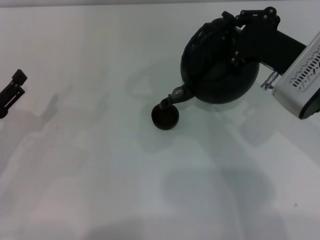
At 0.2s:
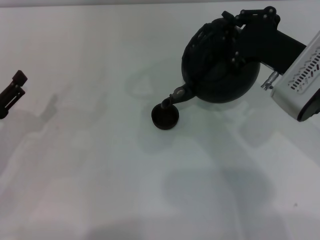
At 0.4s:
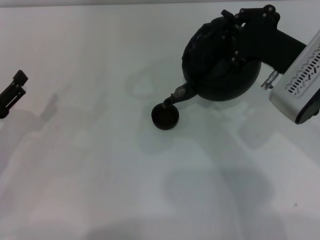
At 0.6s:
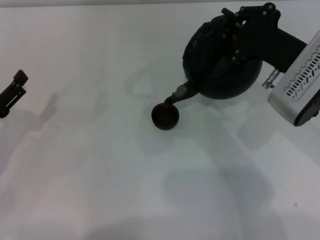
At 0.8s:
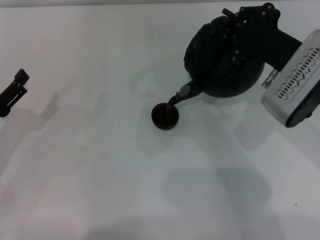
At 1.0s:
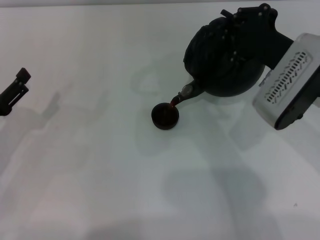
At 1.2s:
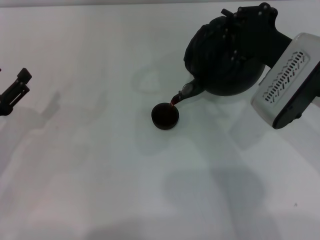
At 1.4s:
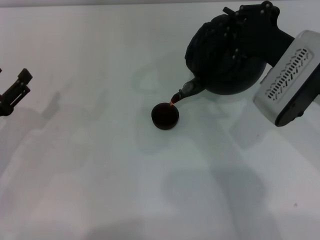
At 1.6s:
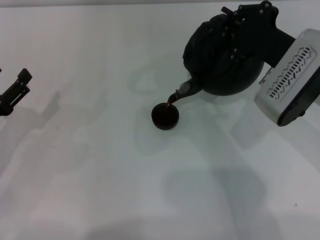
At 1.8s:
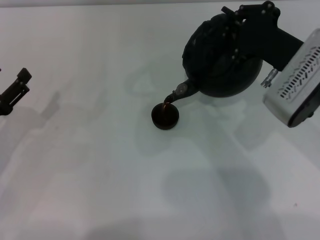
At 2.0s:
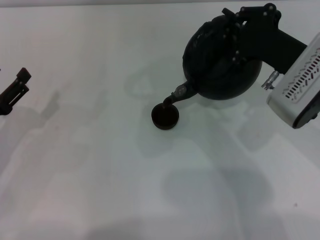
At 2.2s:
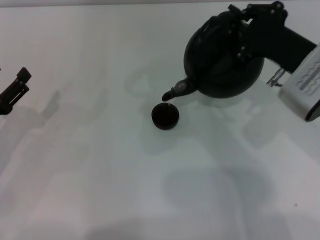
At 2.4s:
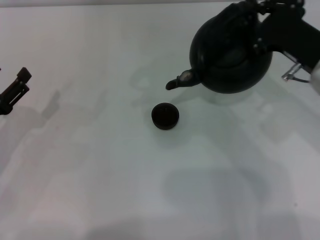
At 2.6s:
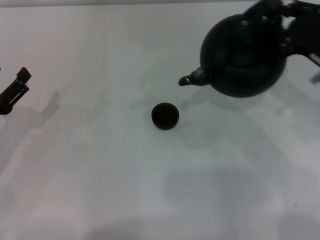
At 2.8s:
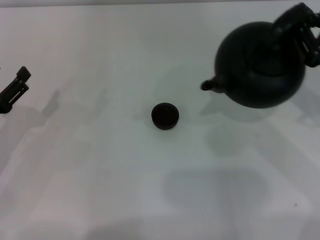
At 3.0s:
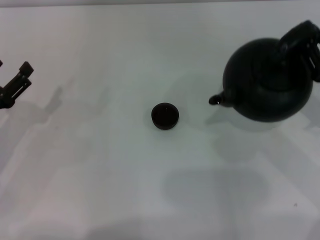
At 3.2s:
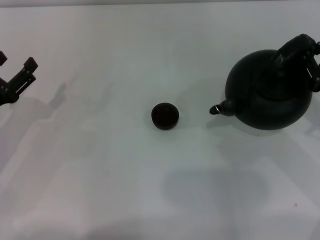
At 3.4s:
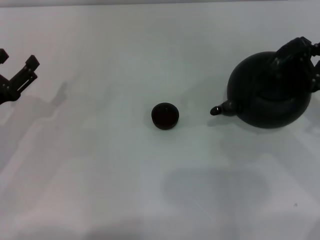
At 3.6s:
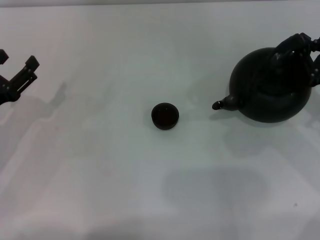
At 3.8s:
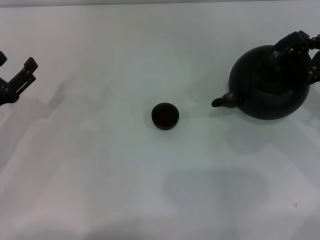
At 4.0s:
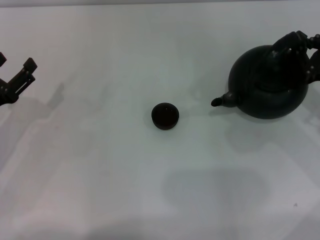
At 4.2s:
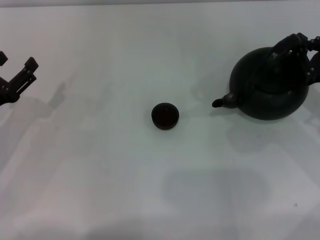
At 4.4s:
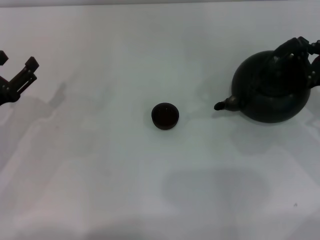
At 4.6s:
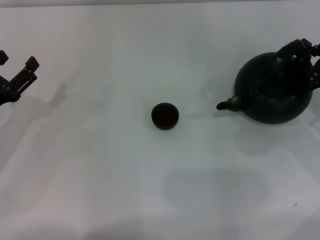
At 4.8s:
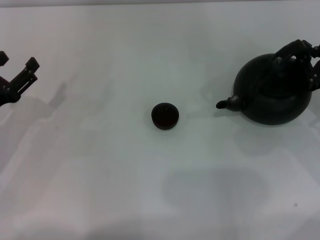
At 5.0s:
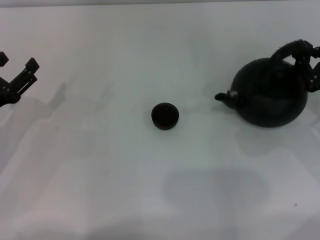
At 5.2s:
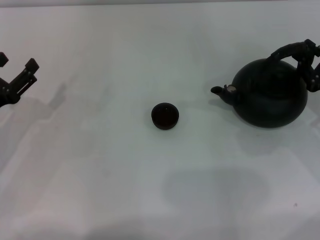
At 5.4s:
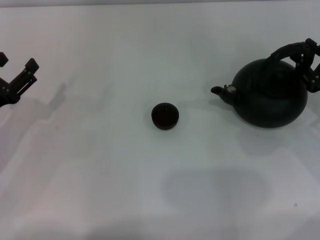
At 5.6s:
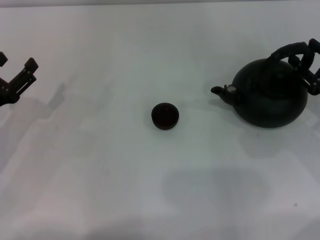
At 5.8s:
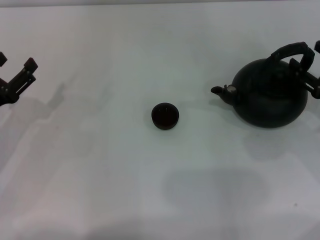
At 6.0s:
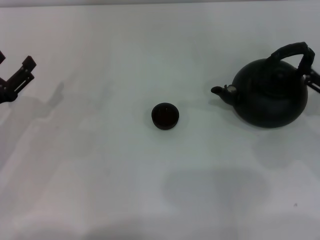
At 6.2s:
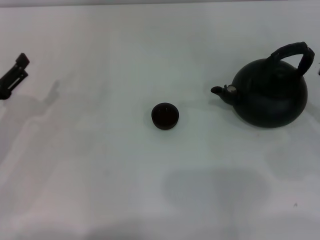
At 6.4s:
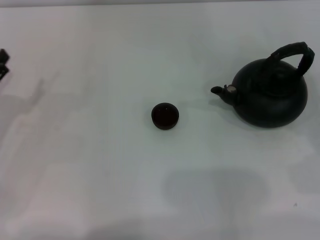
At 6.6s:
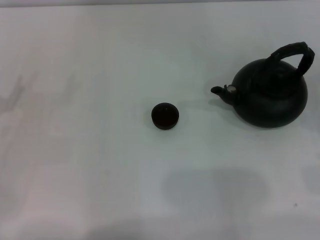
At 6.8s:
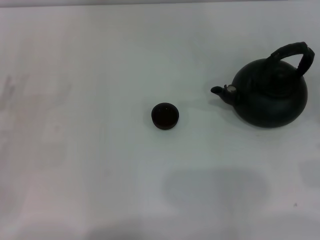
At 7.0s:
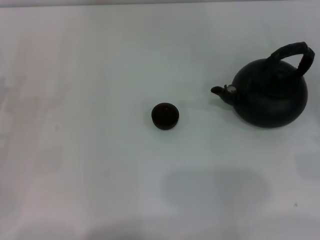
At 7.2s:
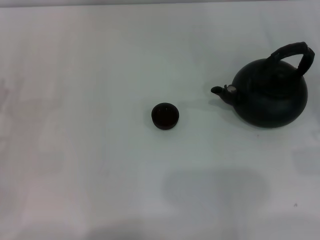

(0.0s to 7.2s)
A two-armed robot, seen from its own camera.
Task of the whole recording: Grasp the handle of the teapot with one hand and pour tea into the teacup.
Step, 0.0s - 2.2s: Pour tea into the teacup with the right gripper.
Step, 2.4s - 5.8s: Put down the teapot with the right gripper.
0.0s - 1.4s: The grippers stay close to where they were, moving slightly.
1.4s - 2.8s: The right gripper travels to the right by about 10 cm.
2.8s - 4.4s: The right gripper moves downward, approximately 5 cm.
4.4s - 5.8s: The right gripper opens up.
5.8s - 7.2s: The right gripper travels to the right by about 5 cm, and opens.

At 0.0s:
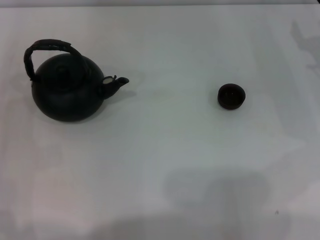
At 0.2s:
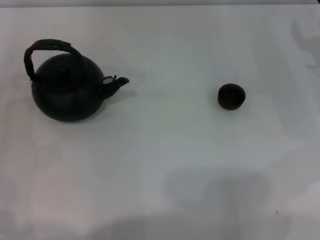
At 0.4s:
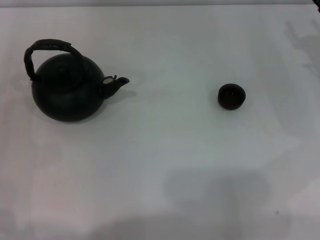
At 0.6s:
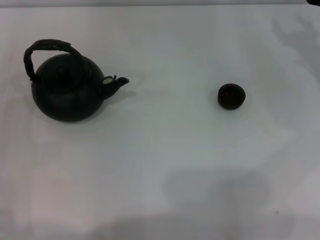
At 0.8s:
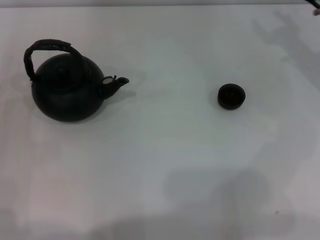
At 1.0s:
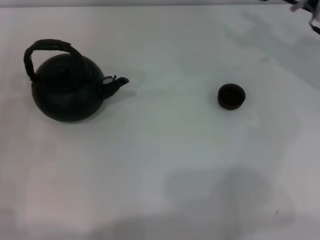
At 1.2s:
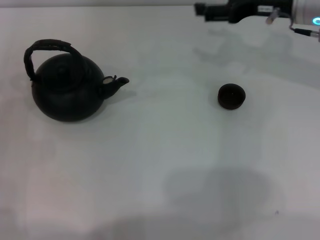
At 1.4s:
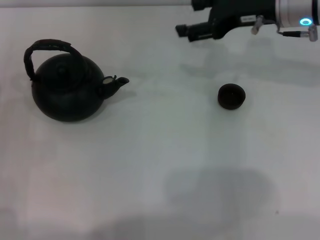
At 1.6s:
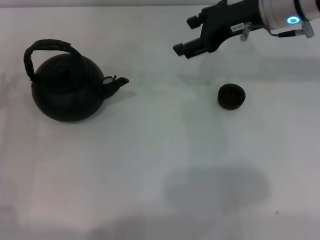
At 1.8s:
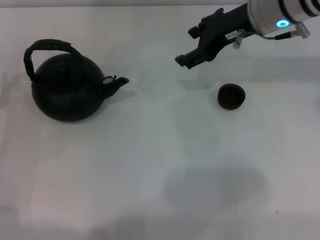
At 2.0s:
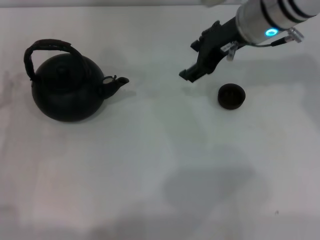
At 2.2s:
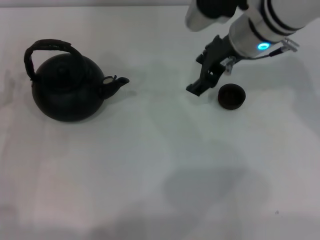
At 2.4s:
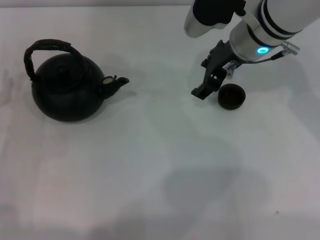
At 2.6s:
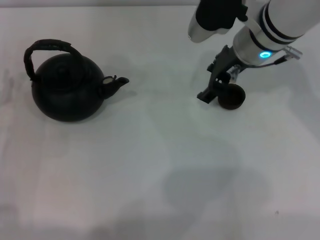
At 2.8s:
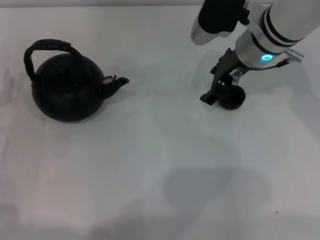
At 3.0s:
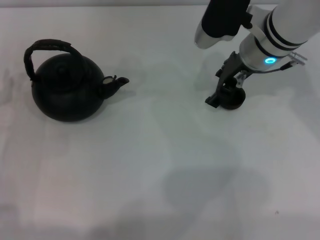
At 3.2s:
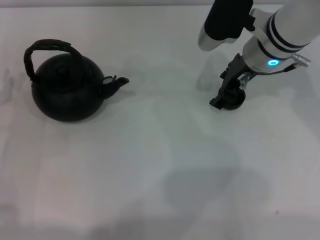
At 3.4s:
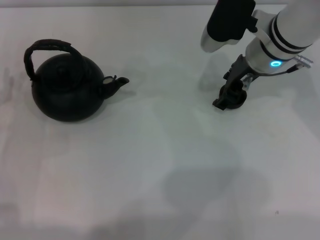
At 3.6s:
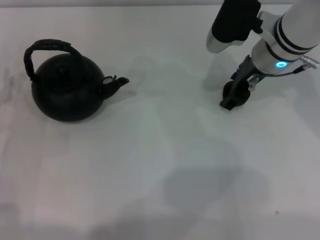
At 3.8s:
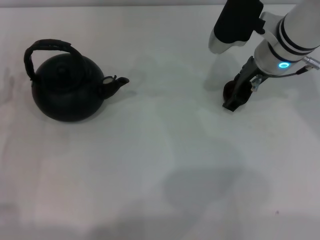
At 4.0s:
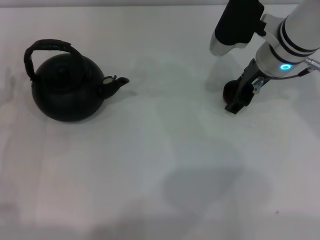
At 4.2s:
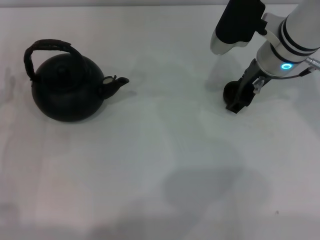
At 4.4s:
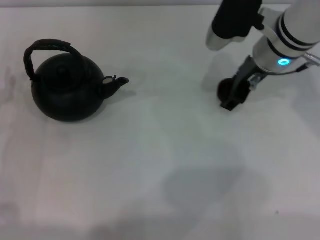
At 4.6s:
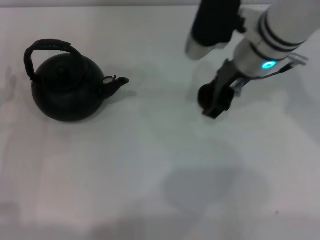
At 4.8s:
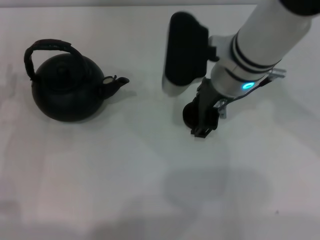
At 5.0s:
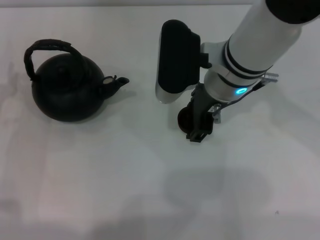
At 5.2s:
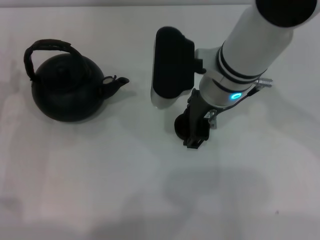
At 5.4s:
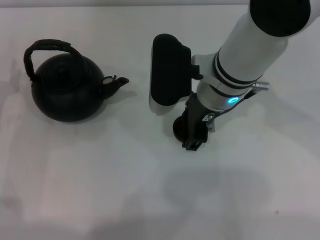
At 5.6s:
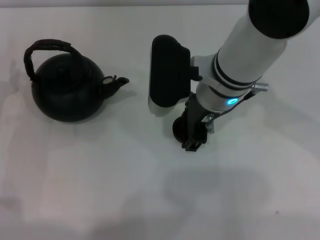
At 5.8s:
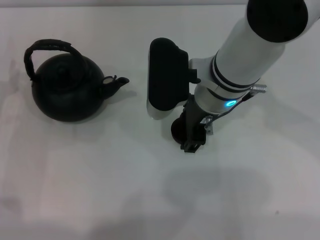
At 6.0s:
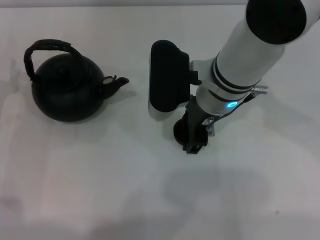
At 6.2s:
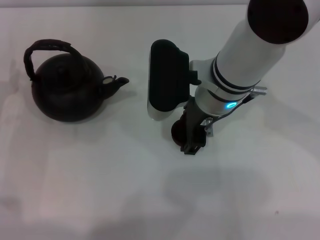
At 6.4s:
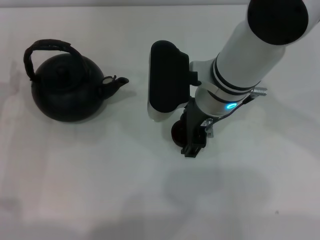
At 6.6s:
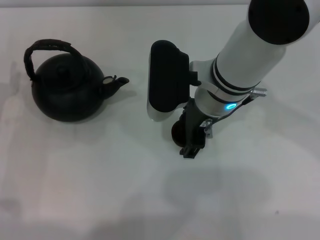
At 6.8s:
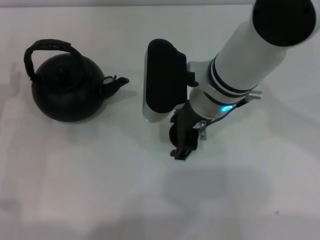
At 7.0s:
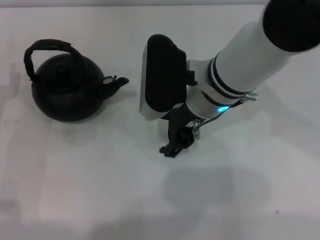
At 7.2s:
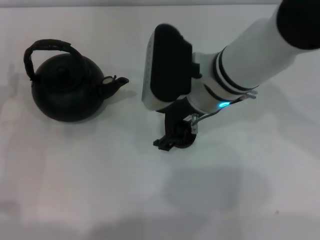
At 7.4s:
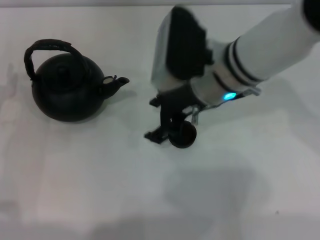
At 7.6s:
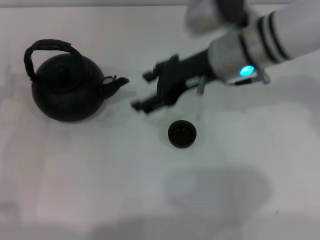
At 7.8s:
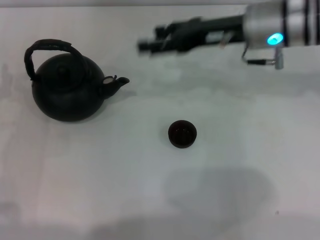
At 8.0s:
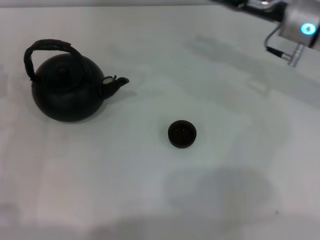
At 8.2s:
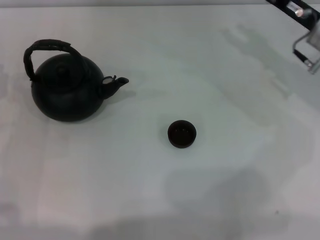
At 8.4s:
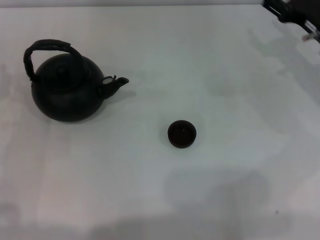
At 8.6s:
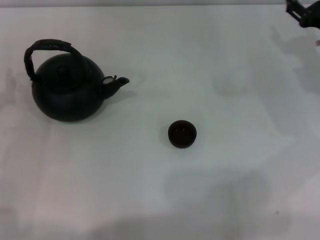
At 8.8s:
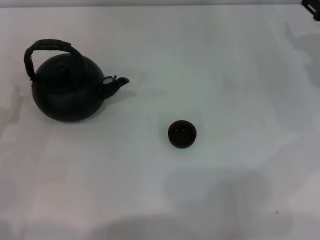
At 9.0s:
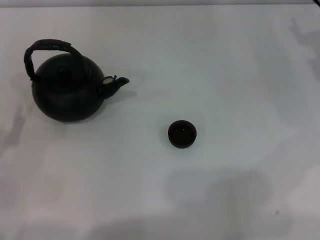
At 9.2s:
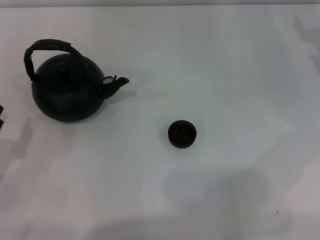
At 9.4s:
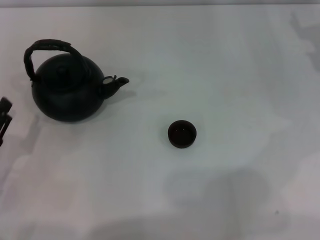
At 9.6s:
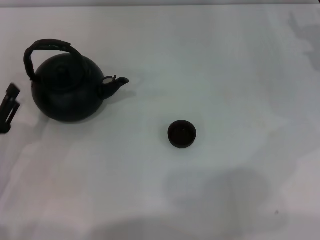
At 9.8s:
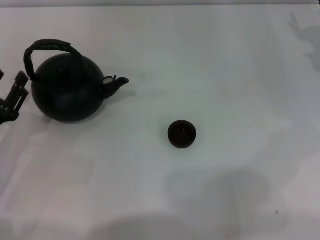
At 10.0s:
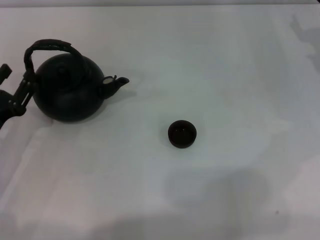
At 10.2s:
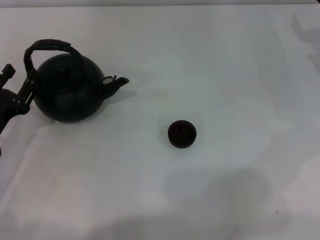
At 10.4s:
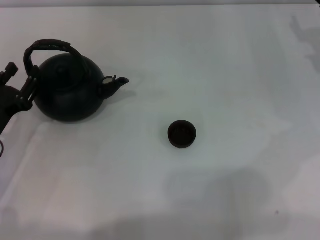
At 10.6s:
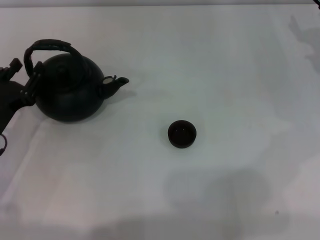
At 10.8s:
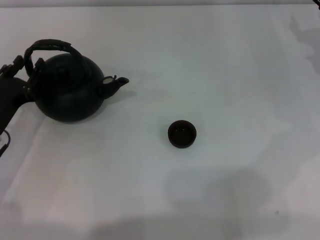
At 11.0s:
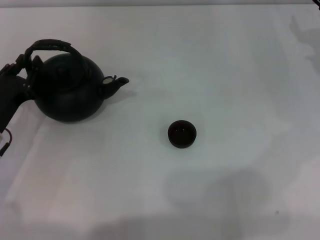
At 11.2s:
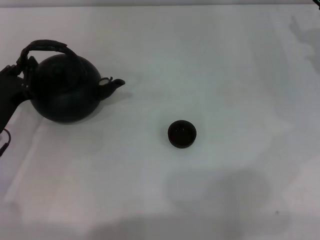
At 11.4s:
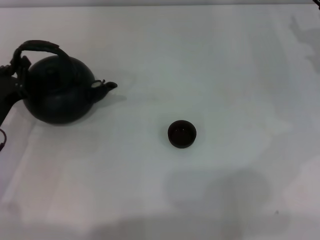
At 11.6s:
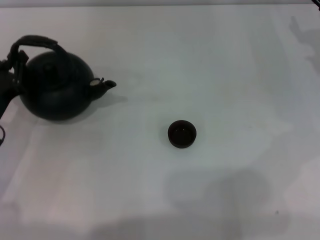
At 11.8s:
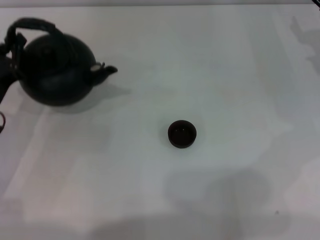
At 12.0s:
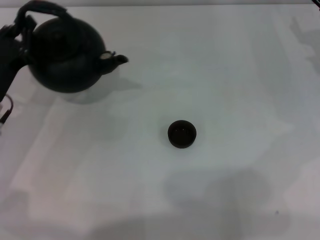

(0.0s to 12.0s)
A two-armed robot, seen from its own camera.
Task of the whole recording: Grasp the handle of the teapot with one hand and pour tea into the teacup.
Step, 0.0s - 4.4s: Pick up the teacup with the right gripper.
Step, 4.6s - 7.2s: Place the teacup in the center of view with the right gripper.
0.0s - 1.6s: The right gripper travels to the left and upward by approximately 20 cm.
1.6s - 3.0s: The right gripper moves roughly 5 cm.
3.0s - 4.4s: The grippers move only a little.
4.4s - 6.0s: The right gripper goes approximately 10 cm to the left and backward.
6.0s - 7.6s: The right gripper changes place by roughly 5 cm.
7.6s - 9.0s: The right gripper travels to the right and downward by some 25 cm, while the left gripper is displaced backward by approximately 10 cm.
9.0s - 10.4s: The left gripper moves forward, some 5 cm.
10.4s - 12.0s: The left gripper changes place by about 5 cm, and closes up.

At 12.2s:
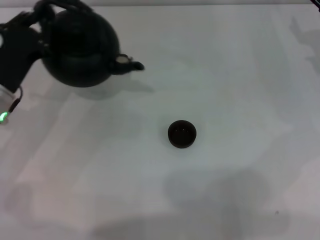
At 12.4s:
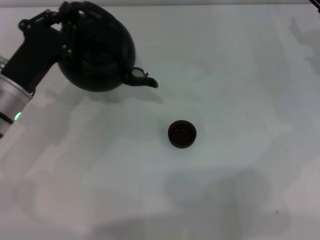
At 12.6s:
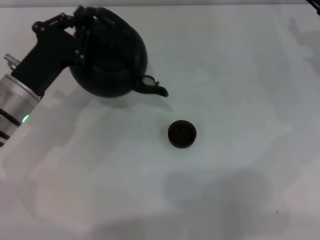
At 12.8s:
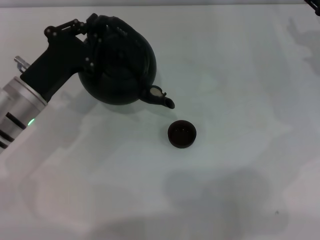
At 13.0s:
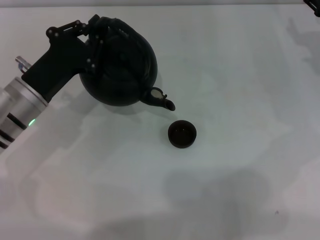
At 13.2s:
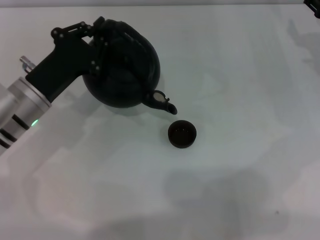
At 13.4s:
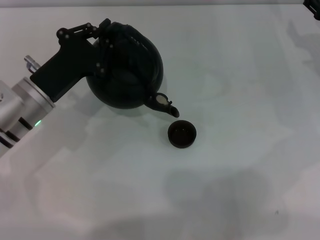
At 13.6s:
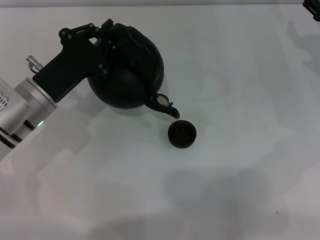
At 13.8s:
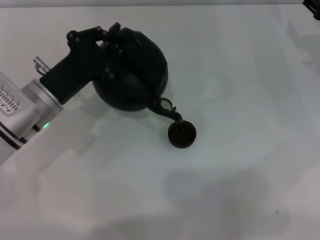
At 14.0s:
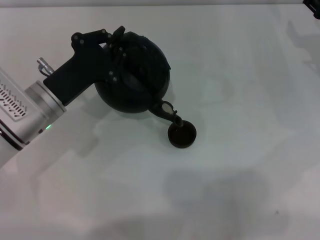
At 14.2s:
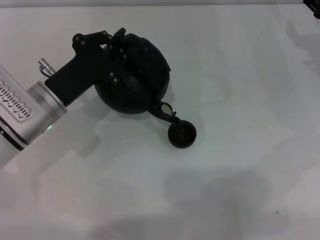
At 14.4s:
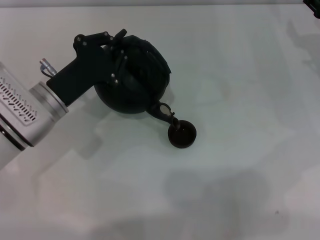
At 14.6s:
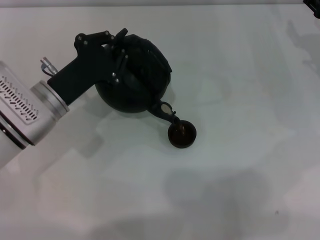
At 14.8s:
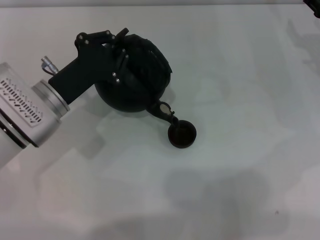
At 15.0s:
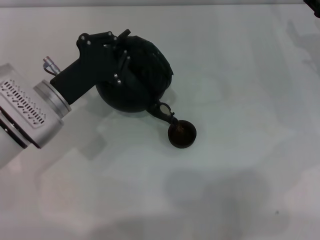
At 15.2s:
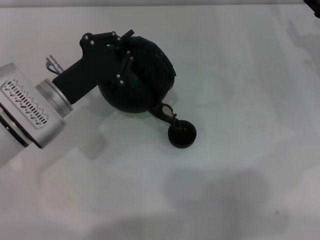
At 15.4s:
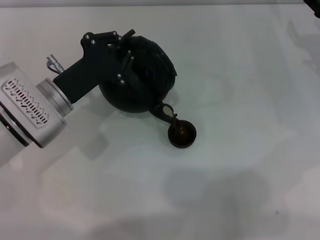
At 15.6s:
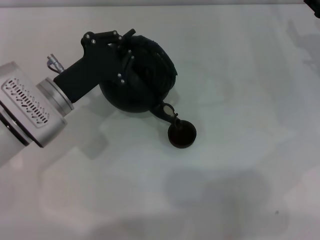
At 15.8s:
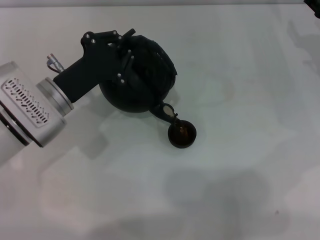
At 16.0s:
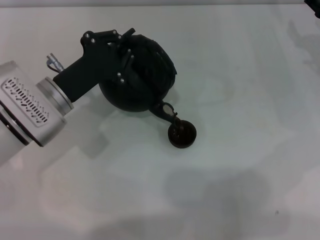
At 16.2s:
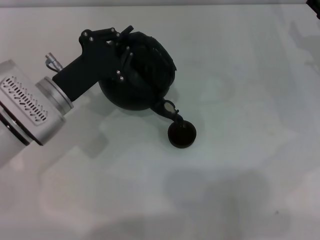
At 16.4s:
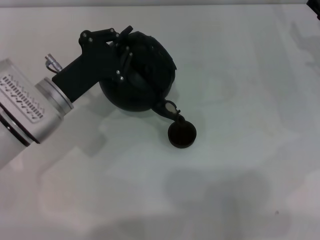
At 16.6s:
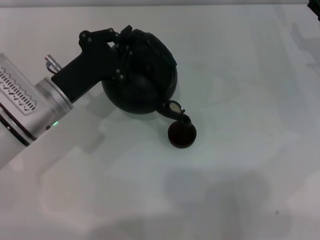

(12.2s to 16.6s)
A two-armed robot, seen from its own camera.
Task of the whole recording: Grasp the handle of the teapot with one hand and pour tea into the teacup.
13.6s - 16.6s: The grippers make only small movements.
